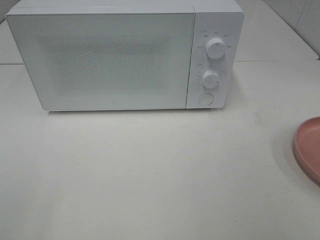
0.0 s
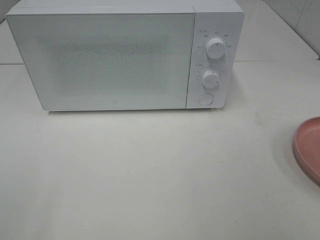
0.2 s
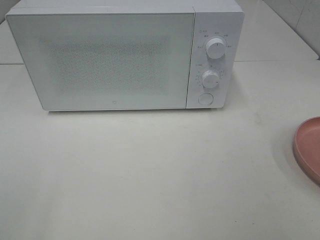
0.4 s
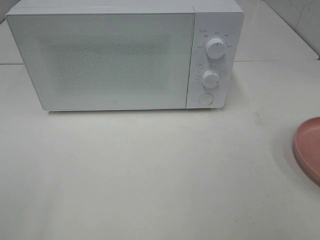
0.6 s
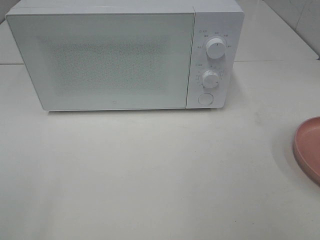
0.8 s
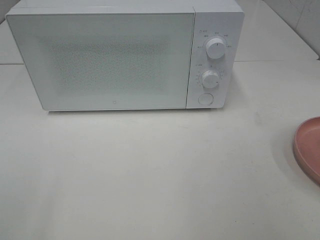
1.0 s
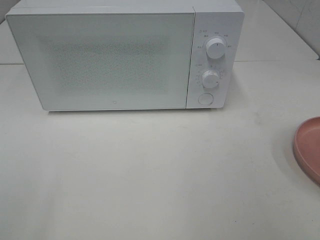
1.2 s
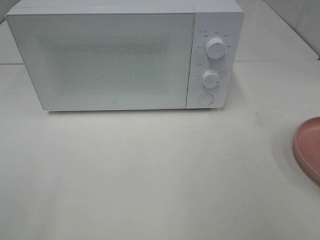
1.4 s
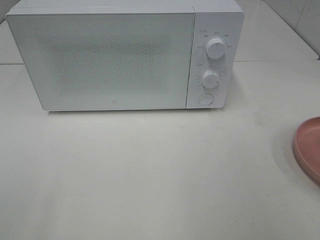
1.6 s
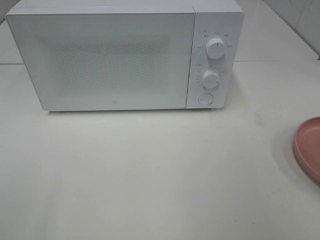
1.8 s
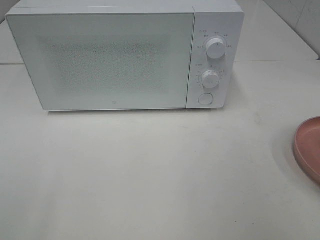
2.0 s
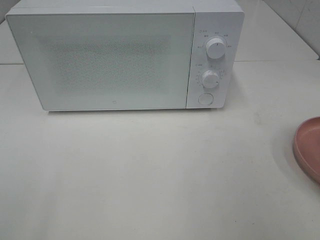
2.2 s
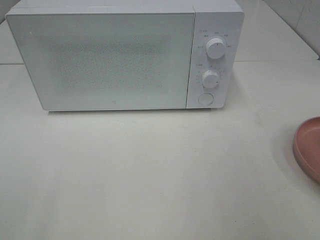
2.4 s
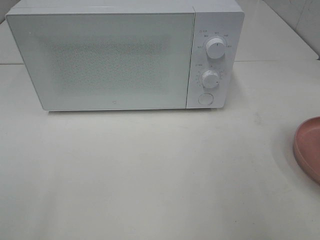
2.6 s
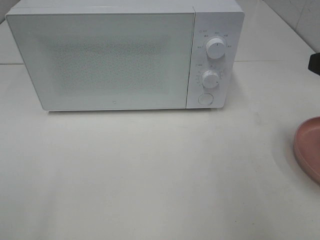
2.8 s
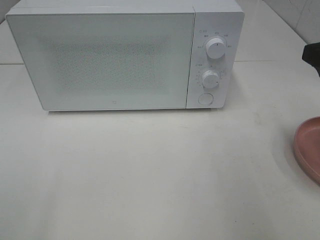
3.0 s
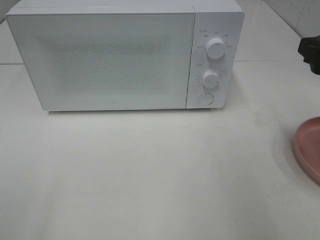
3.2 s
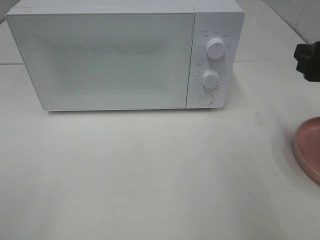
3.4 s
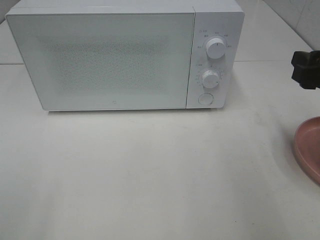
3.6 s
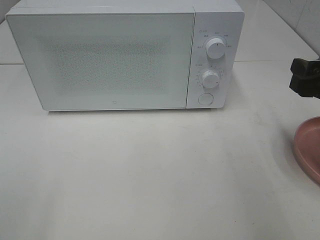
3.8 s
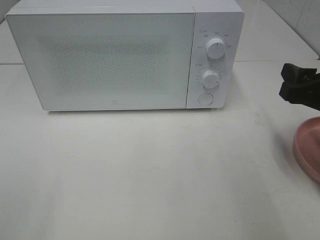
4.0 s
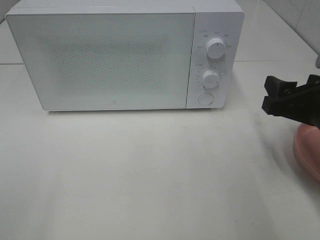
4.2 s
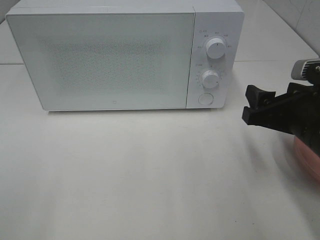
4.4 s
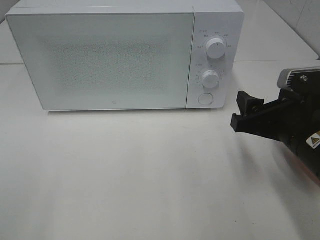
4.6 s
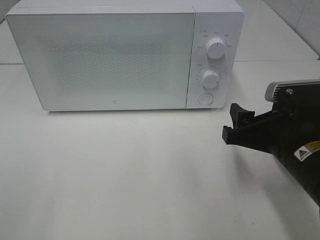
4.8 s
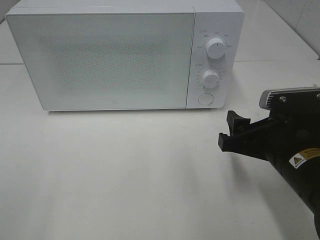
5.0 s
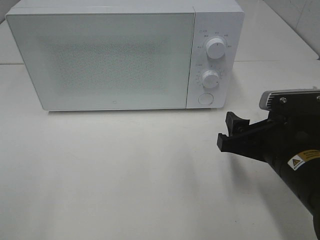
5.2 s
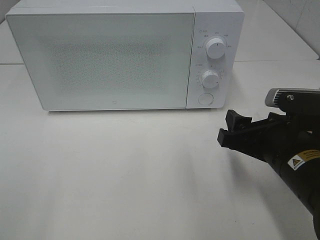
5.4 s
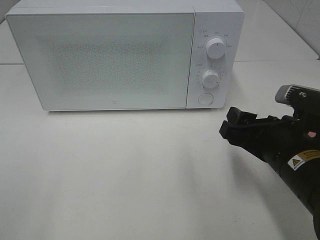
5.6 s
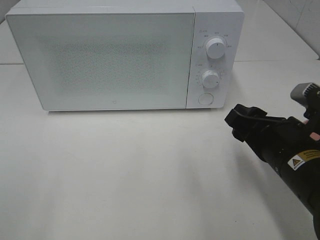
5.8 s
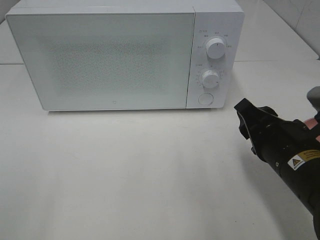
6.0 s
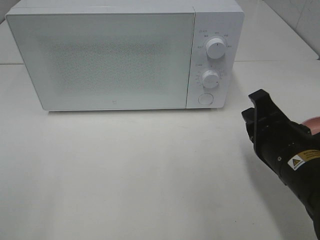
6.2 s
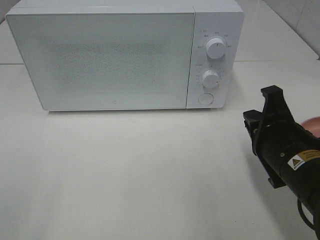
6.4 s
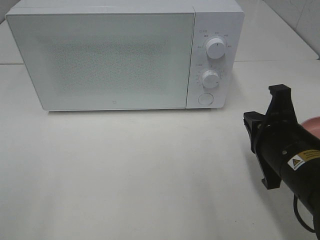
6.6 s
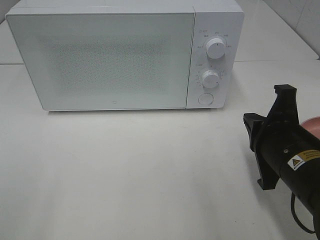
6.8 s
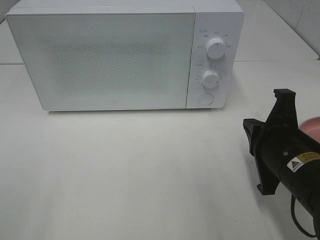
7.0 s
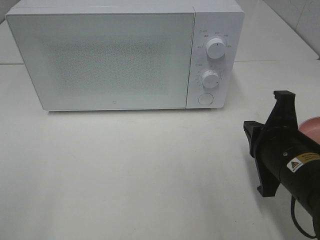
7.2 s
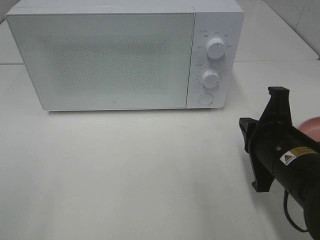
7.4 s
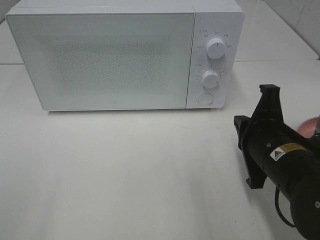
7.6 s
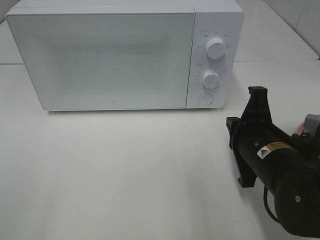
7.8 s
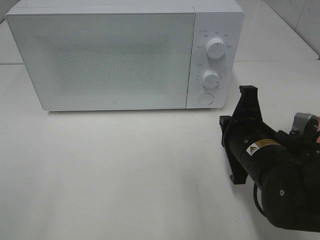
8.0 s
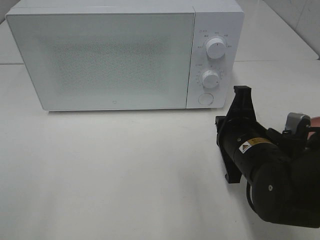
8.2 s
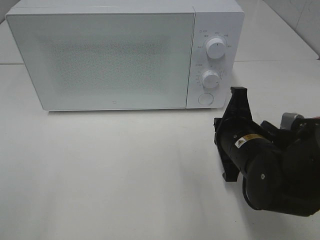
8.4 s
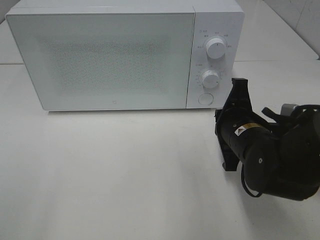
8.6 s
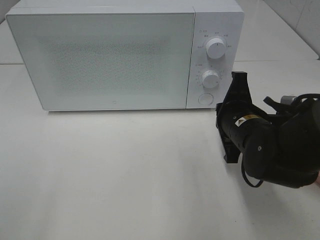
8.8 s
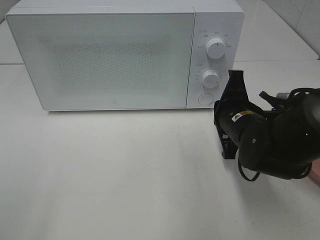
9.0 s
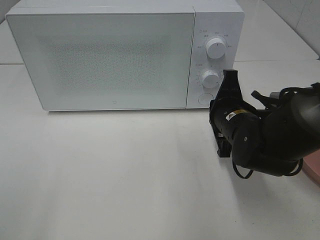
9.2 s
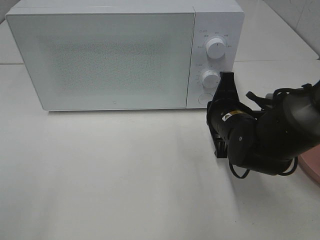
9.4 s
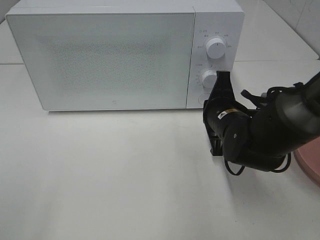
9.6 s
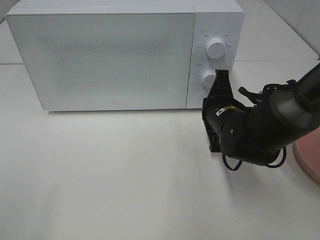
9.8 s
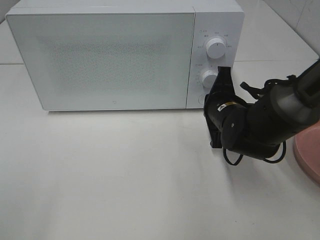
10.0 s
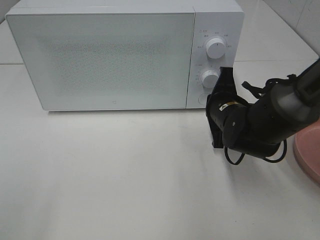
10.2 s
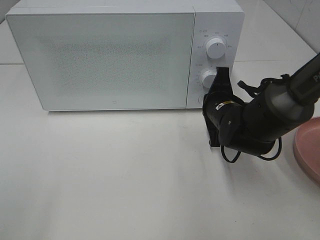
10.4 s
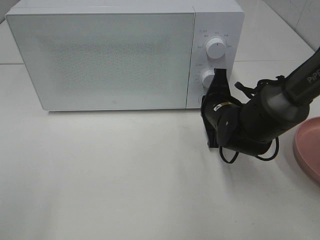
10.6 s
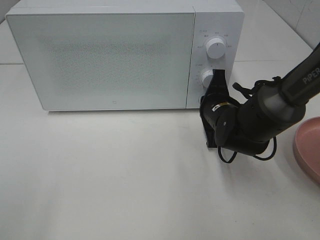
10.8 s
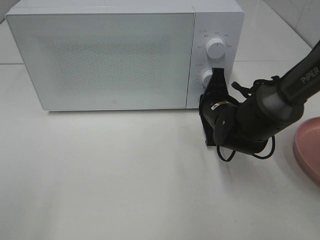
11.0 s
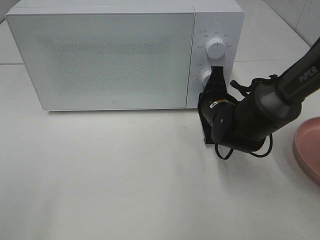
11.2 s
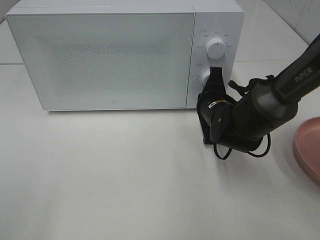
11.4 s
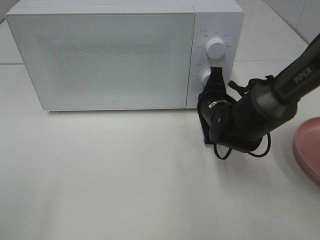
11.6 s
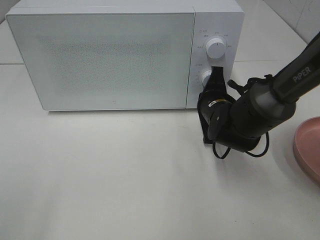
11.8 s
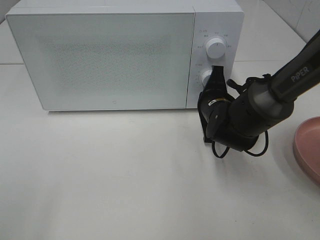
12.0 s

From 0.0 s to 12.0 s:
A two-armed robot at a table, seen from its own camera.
Task of the whole recording: Heat the burger.
From 3.0 s to 4.4 s: The right gripper heads downward and to the left, covering approximately 10 cm.
From 4.4 s to 6.0 s: The right gripper ends up approximately 5 cm from where it was, and closes its fingers.
From 6.0 s to 7.6 s: The right gripper closes its fingers.
From 7.6 s to 9.0 s: The right gripper heads forward, covering about 10 cm.
From 9.0 s to 10.4 s: The right gripper shifts approximately 5 cm forward.
From 10.4 s to 12.0 s: The grippers stay close to where they were, moving slightly.

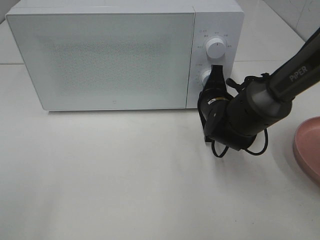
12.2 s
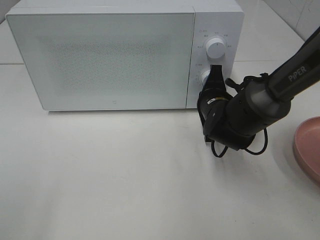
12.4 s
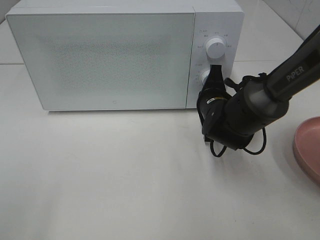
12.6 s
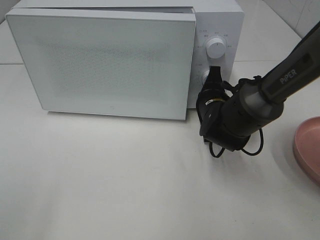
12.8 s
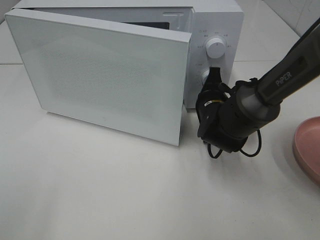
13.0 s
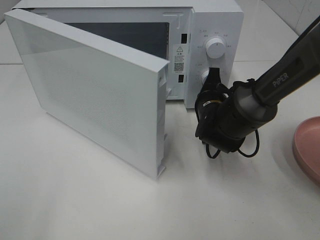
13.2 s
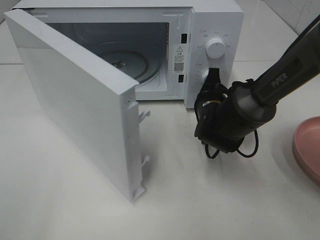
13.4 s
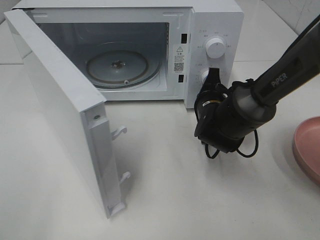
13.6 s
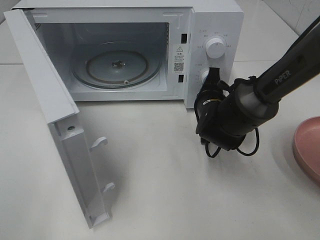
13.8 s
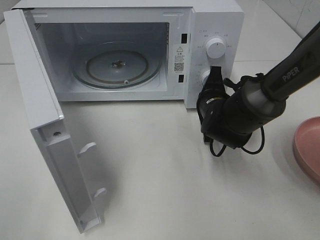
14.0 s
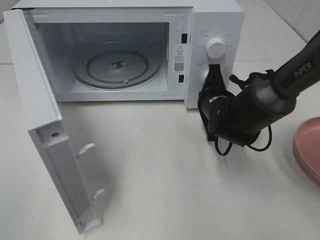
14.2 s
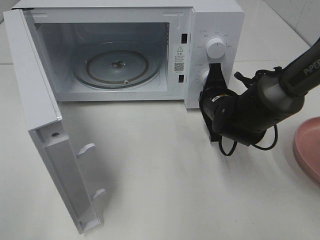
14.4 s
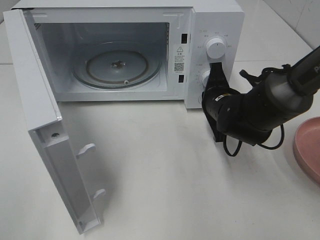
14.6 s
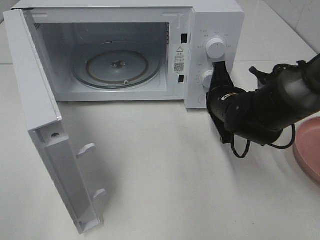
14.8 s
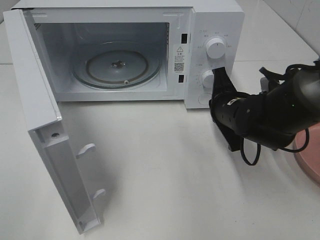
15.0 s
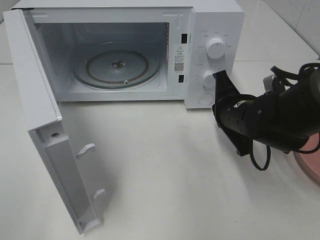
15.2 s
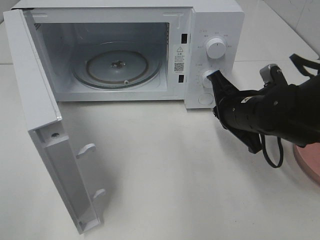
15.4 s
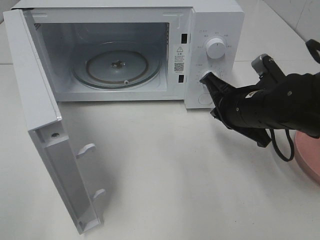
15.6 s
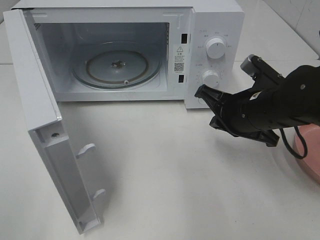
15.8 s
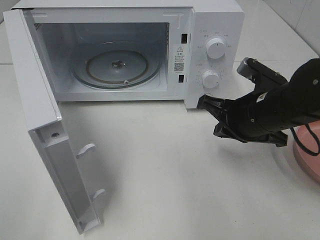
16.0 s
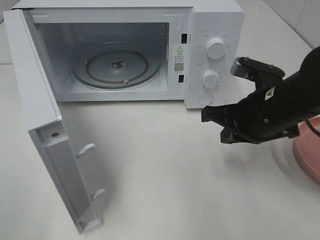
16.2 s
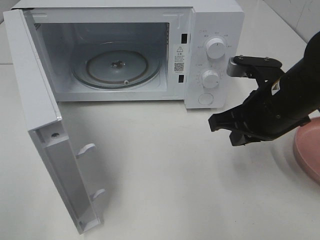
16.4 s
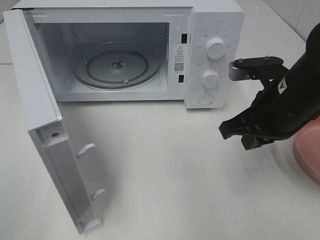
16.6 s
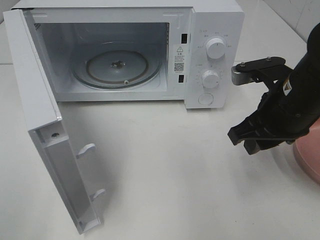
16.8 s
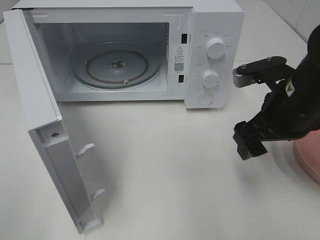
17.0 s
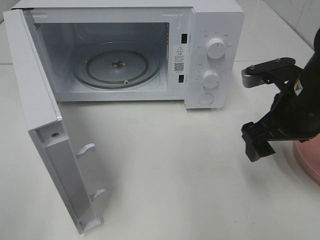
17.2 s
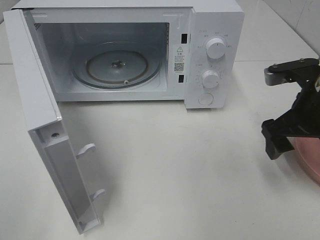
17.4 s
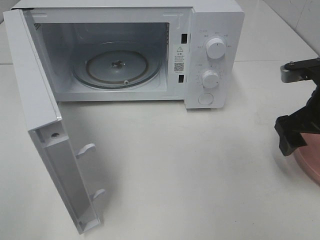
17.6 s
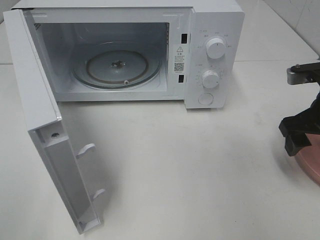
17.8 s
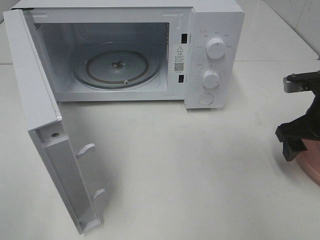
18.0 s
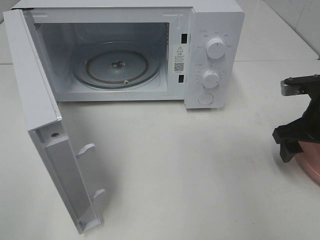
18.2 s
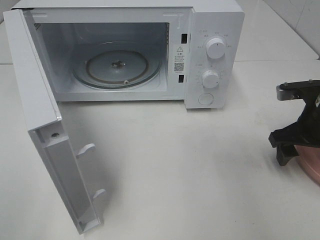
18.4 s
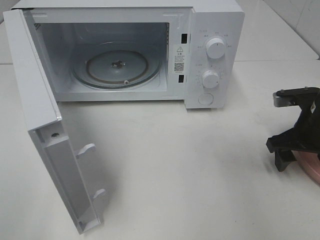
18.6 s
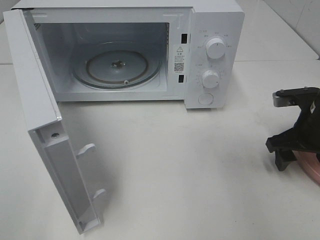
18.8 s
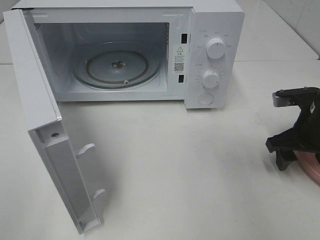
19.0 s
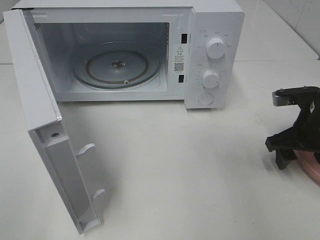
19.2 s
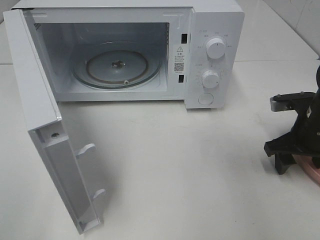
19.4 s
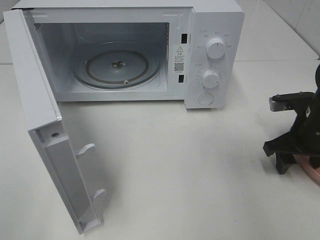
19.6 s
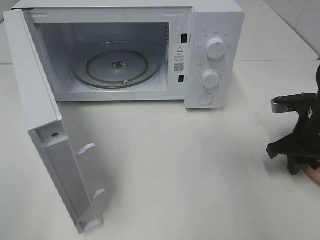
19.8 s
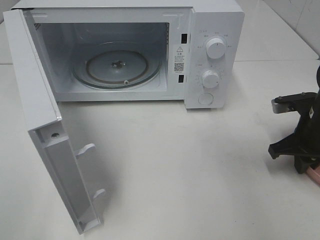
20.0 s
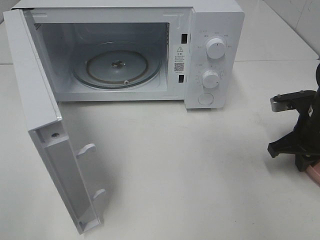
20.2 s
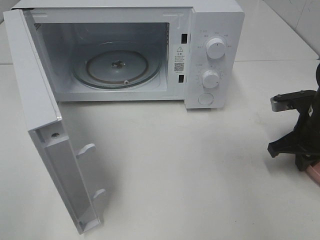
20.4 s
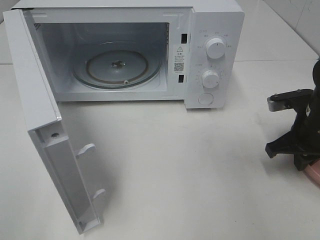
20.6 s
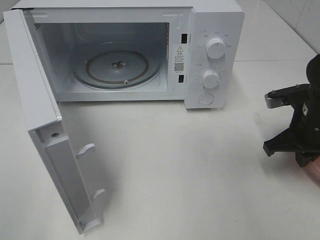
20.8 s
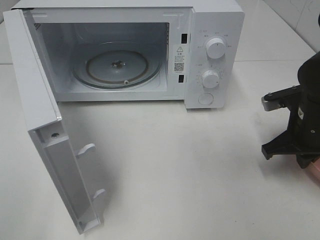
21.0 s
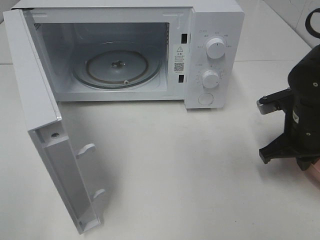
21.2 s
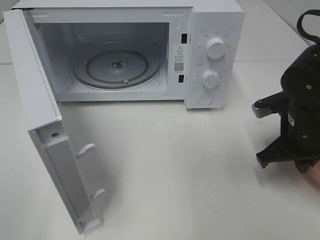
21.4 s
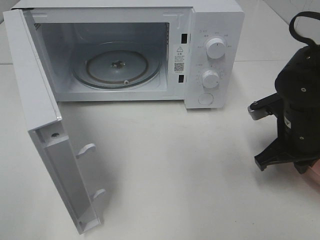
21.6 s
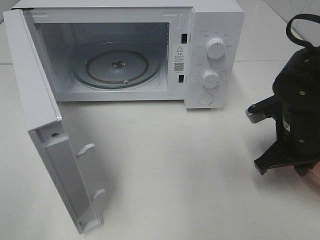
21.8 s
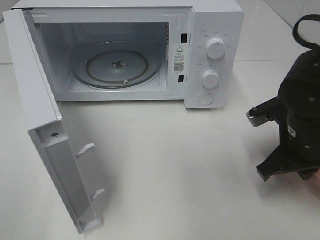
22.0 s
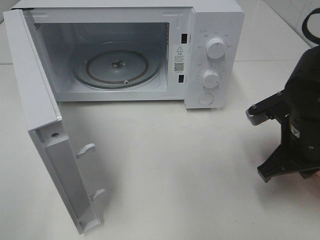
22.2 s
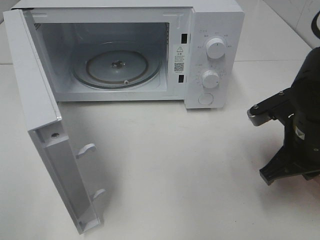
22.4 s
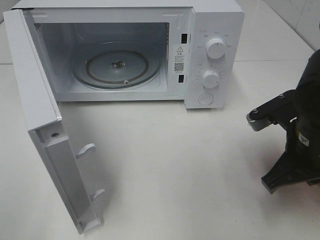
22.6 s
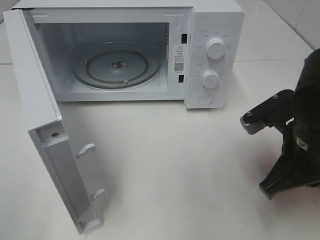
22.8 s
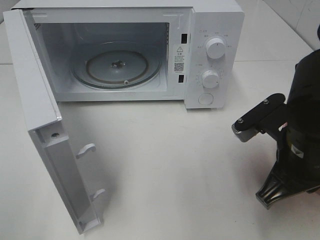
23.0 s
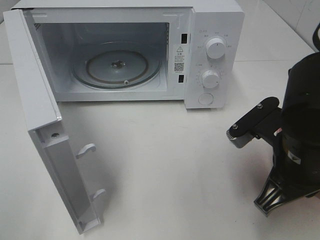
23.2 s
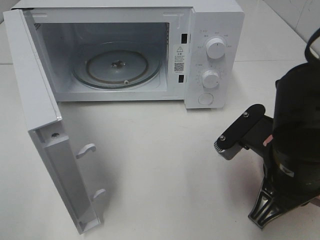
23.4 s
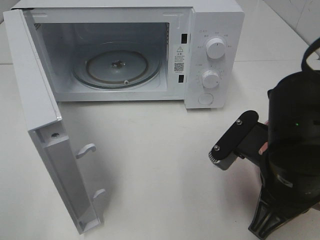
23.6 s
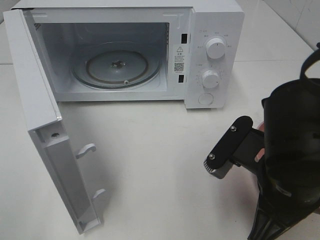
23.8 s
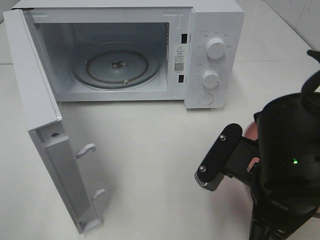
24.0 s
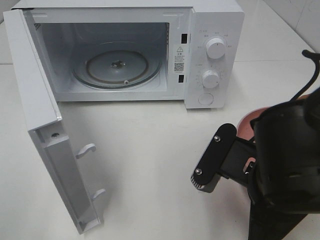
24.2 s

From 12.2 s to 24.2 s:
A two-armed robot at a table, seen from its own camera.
Task of the whole recording: Heat the burger.
Step, from 12.2 s to 14.6 s: Right hand: press the switch.
Step, from 14.8 s to 20.6 s: Right hand: grab the plate with the hamburger.
From 13.8 s to 15.2 s: The right gripper goes roughly 5 cm backward.
From 15.2 s to 16.6 s: The right gripper shifts some 10 cm upward.
From 16.6 s to 18.2 s: The right gripper travels to the right by some 10 cm, and opens.
From 18.2 s to 19.8 s: The right gripper closes its fingers.
From 19.8 s to 21.2 s: The right gripper closes up.
From 21.2 s to 22.6 s: The right gripper moves backward, roughly 5 cm.
From 22.6 s to 24.2 s: The right gripper shifts approximately 10 cm to the left and backward.
